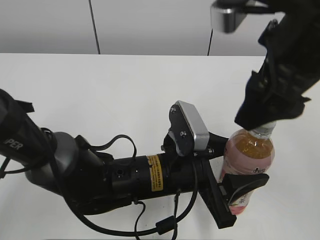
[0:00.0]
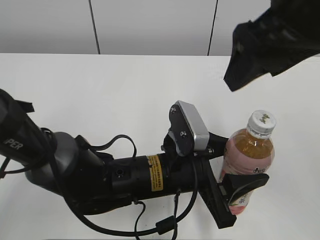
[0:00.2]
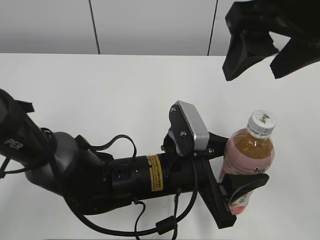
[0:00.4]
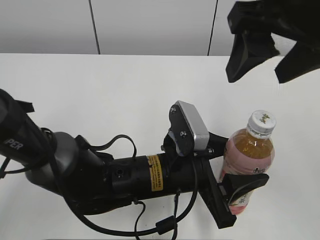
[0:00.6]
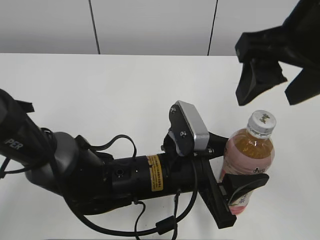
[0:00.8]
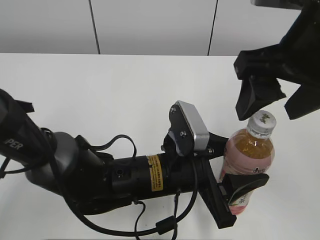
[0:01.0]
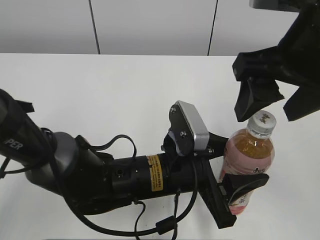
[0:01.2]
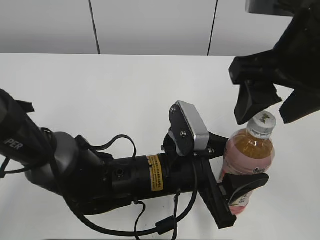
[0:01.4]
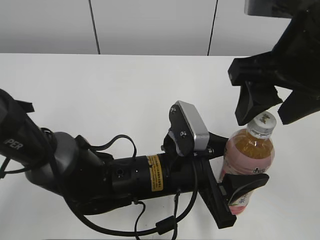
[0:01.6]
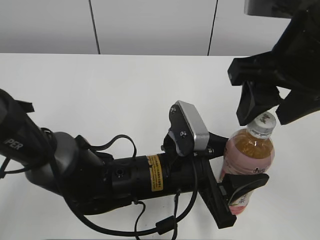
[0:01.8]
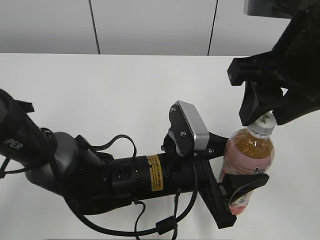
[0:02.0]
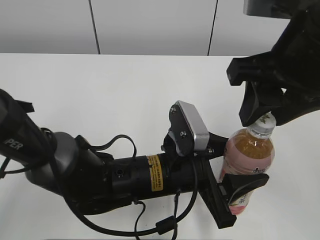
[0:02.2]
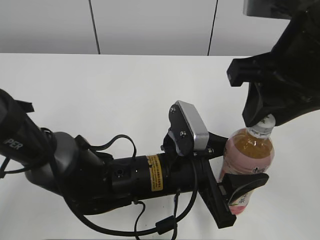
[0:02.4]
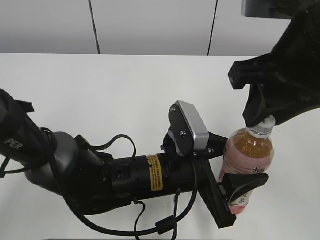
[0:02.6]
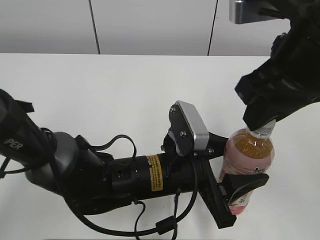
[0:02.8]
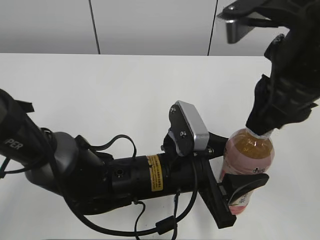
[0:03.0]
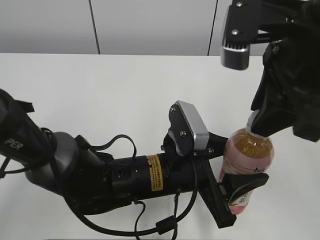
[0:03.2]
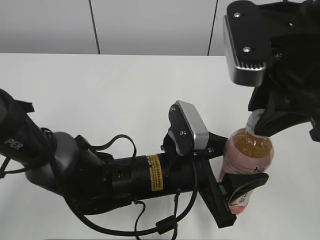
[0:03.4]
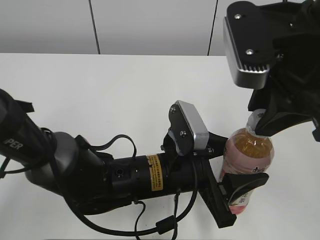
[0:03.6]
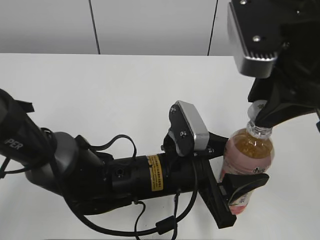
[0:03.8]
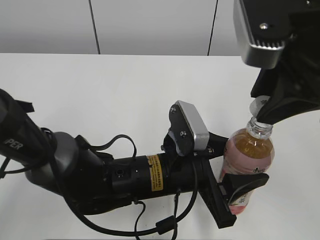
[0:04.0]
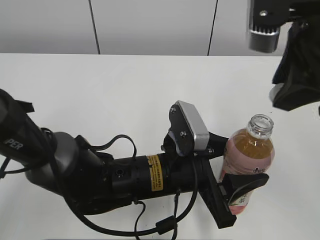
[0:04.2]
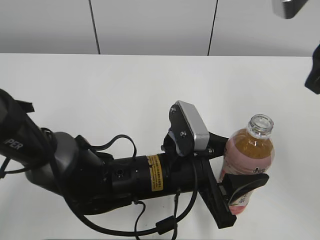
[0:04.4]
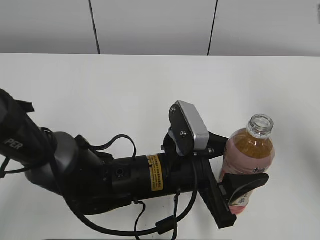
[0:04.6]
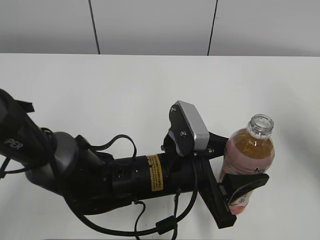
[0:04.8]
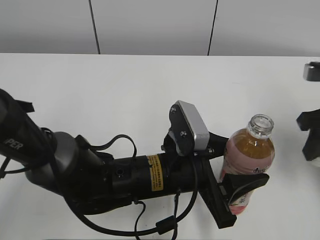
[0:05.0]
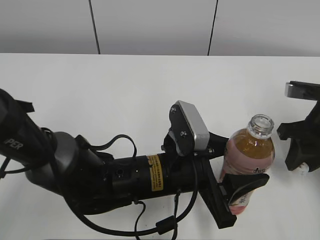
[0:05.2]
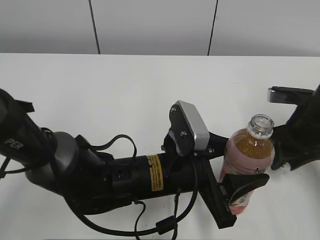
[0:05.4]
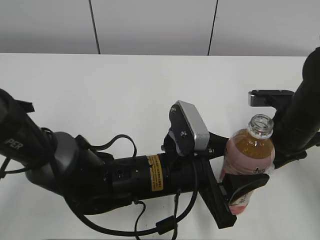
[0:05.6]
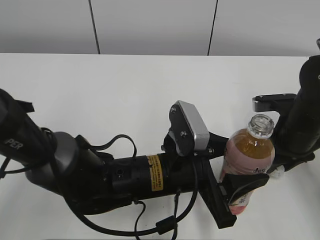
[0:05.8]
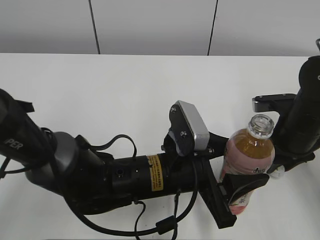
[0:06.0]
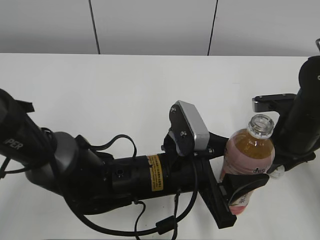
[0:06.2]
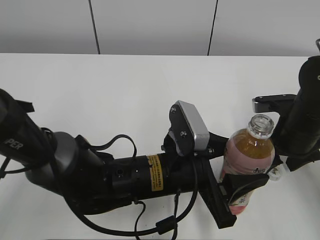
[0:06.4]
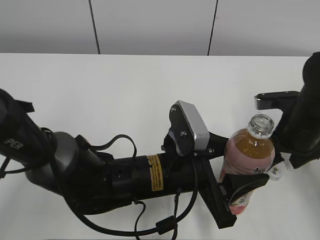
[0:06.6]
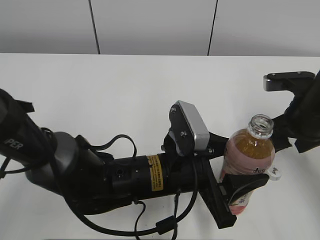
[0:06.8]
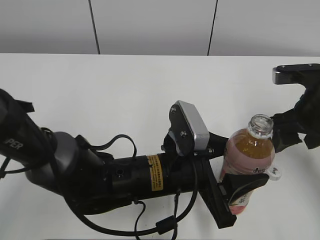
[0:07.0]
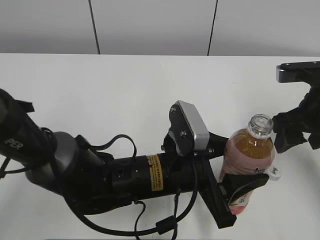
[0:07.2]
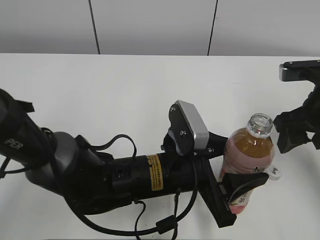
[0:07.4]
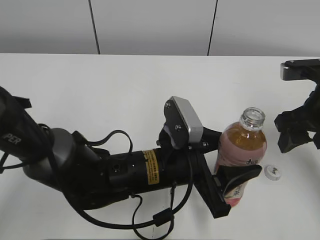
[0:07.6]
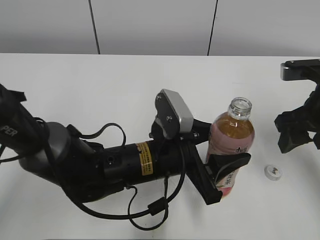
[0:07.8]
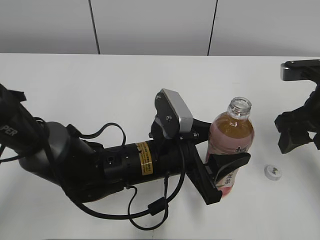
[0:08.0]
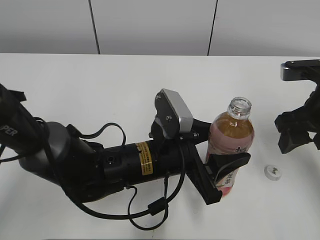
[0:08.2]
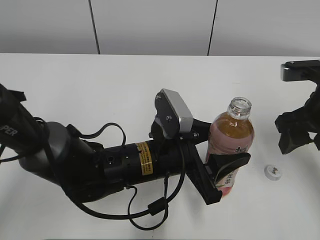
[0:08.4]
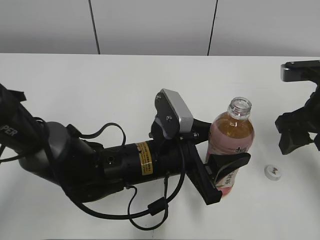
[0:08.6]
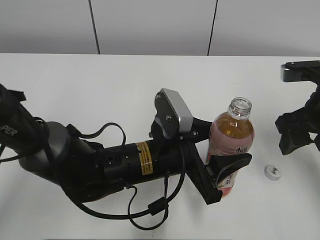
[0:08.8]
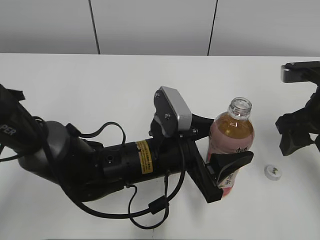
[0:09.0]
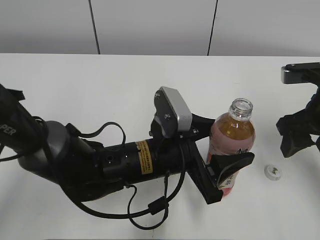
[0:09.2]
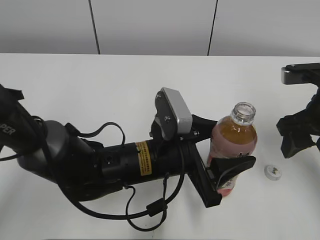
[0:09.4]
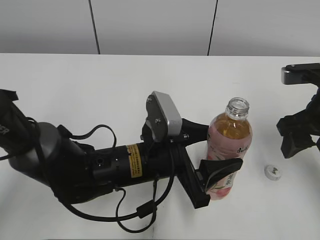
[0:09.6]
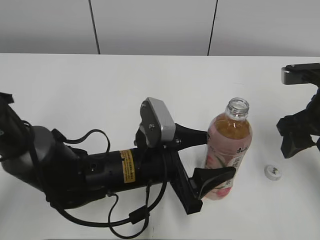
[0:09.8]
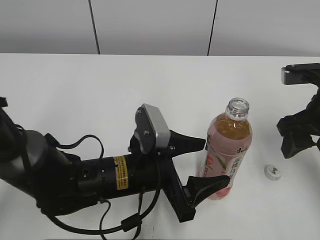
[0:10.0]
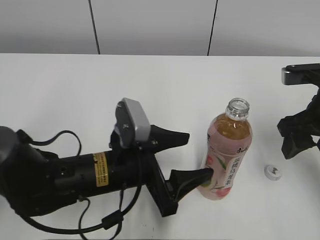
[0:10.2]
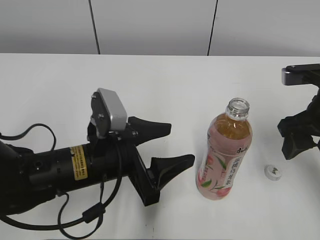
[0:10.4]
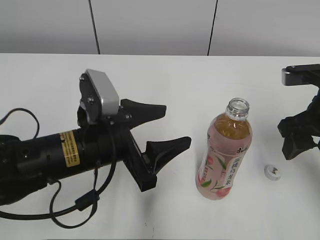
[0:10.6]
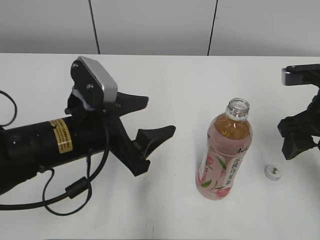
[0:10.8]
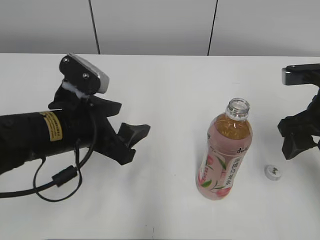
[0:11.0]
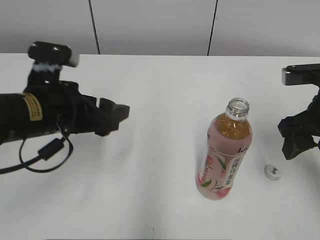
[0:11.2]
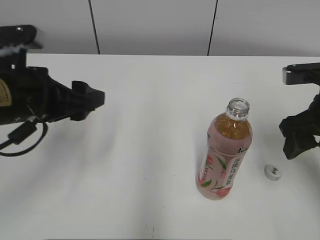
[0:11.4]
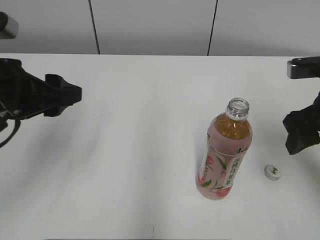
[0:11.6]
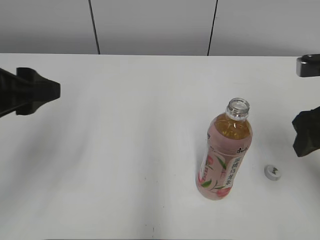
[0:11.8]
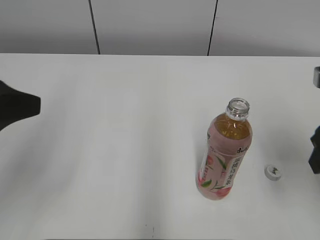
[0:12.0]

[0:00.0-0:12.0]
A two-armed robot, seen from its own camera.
Step, 0:03.8 to 0:06.2: Place the bottle cap on the right.
Step, 0:06.4 to 0:09.6: Place the Peach Oolong Tea with the left hand.
0:01.6 to 0:03.0: The right gripper closes its fingers.
0:03.0 to 0:04.4: The right gripper shifts by about 5 cm.
0:04.4 to 0:06.0: The right gripper shifts roughly 20 cm downward.
0:06.0 to 0:07.6: The right gripper shifts roughly 10 cm upward, and opens up.
0:07.6 to 0:09.0: The grippers stay close to where they were, moving slightly.
0:09.0 to 0:10.4: The left gripper travels to the left by some 10 cm.
0:10.4 to 0:12.0: The left gripper goes roughly 20 cm upward and to the left, while the right gripper shifts by roughly 5 cm.

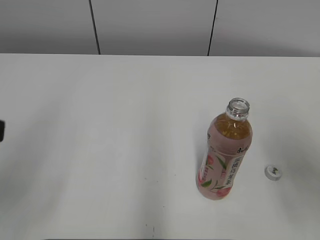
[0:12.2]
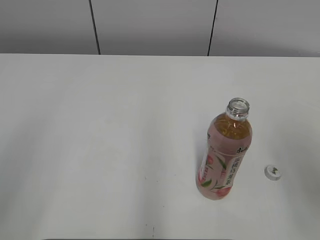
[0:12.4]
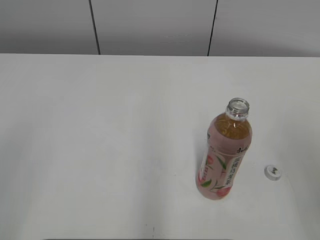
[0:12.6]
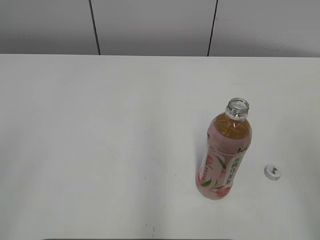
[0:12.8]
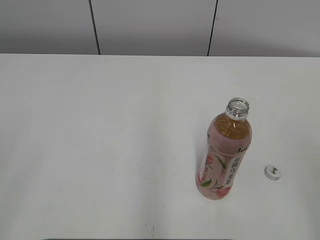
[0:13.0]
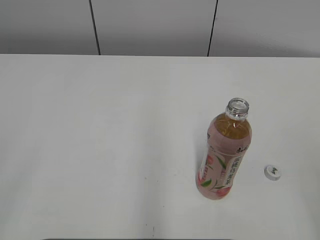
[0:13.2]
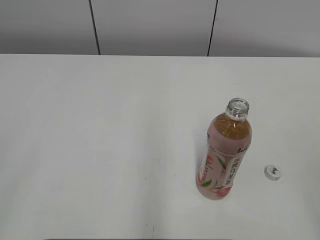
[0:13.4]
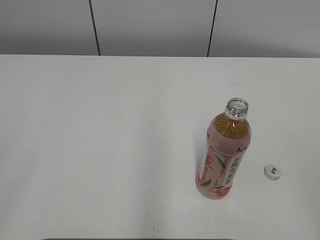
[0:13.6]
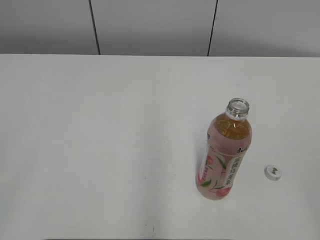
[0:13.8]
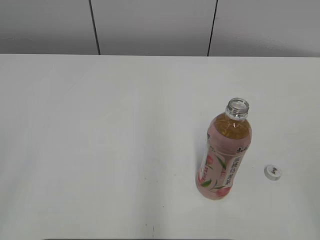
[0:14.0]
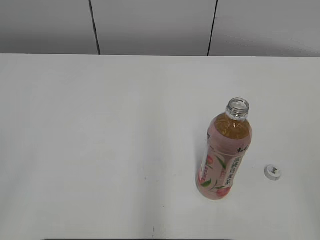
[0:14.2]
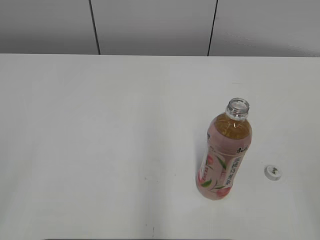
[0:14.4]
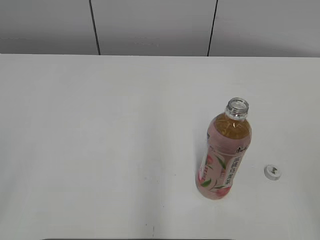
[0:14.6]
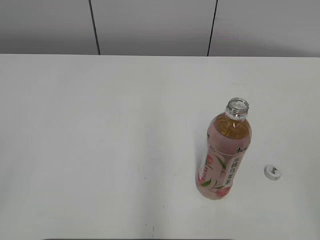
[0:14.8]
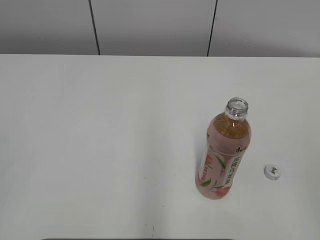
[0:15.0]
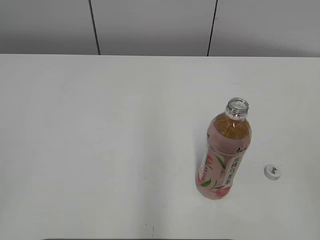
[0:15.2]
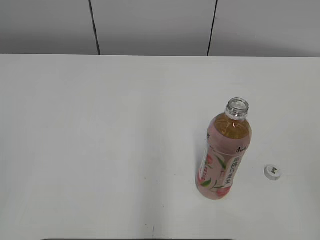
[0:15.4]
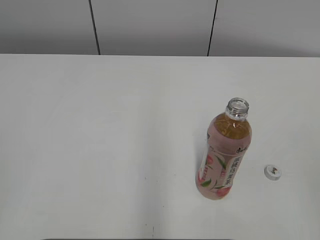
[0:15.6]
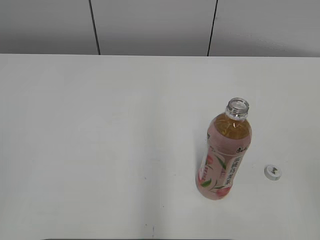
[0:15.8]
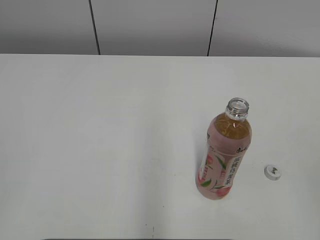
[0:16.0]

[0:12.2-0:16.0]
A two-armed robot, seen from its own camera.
0:12.2 to 0:13.4: The left gripper moves backward and to the left, about 15 cm, while the right gripper moves backward, roughly 20 cm.

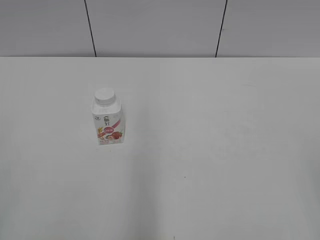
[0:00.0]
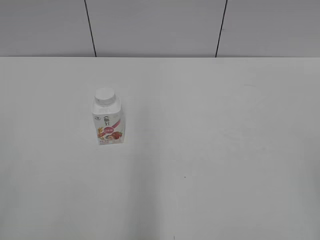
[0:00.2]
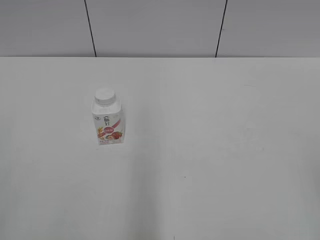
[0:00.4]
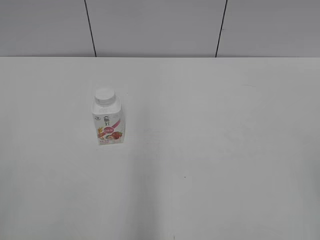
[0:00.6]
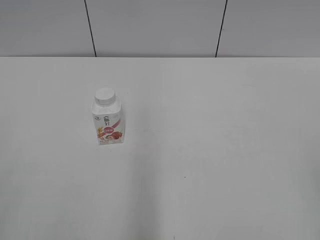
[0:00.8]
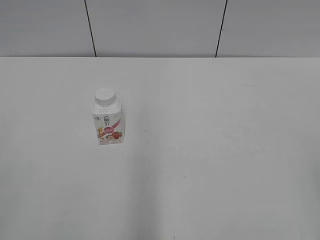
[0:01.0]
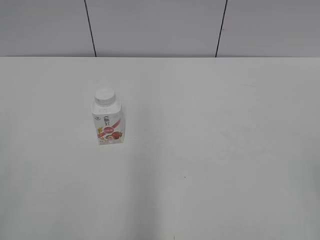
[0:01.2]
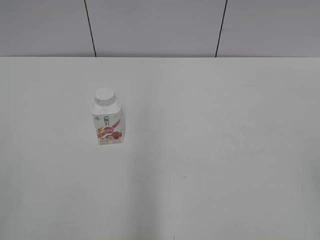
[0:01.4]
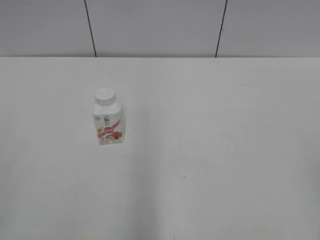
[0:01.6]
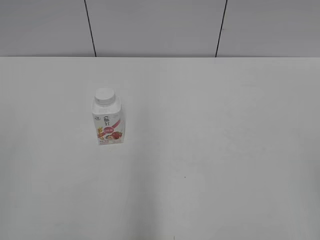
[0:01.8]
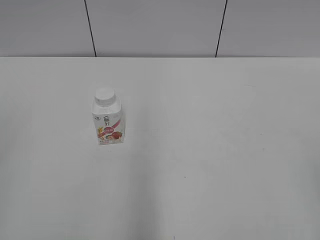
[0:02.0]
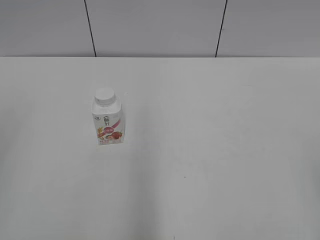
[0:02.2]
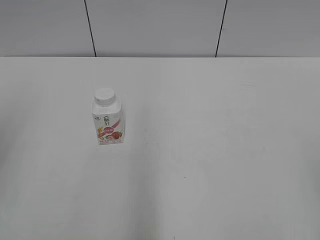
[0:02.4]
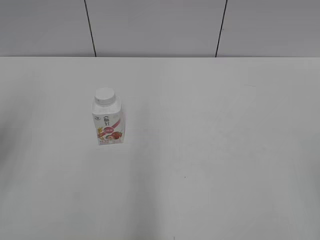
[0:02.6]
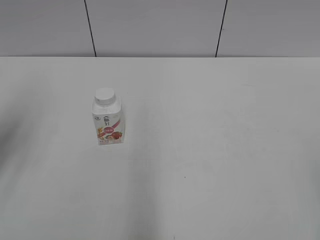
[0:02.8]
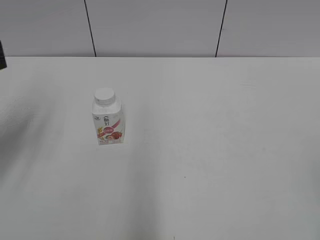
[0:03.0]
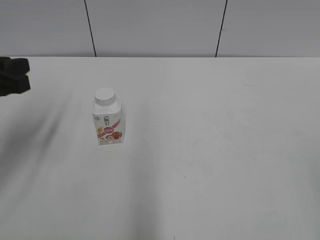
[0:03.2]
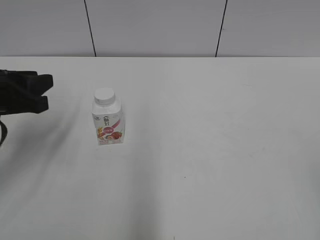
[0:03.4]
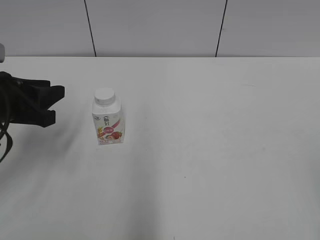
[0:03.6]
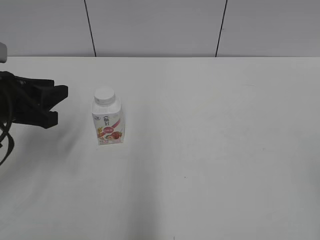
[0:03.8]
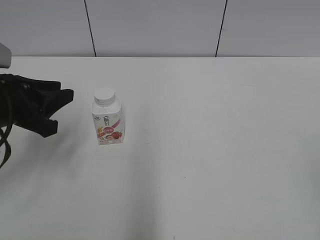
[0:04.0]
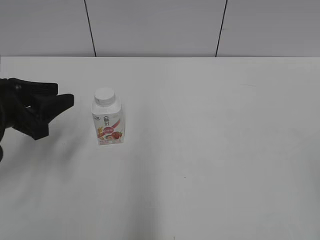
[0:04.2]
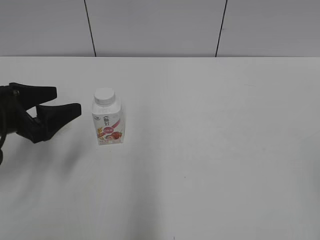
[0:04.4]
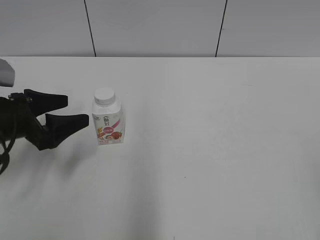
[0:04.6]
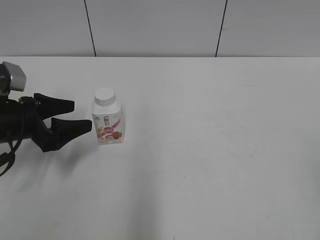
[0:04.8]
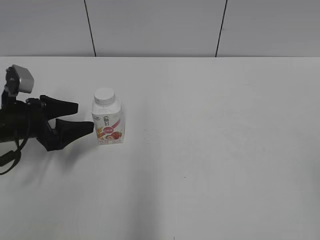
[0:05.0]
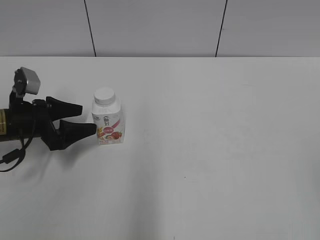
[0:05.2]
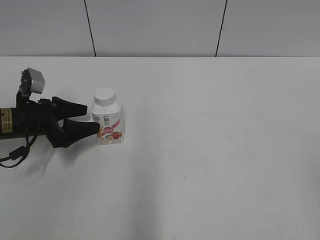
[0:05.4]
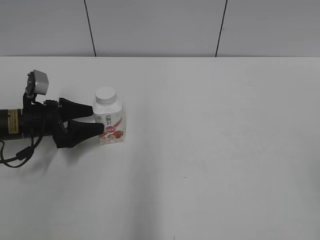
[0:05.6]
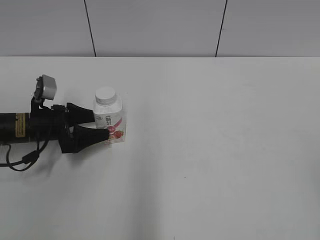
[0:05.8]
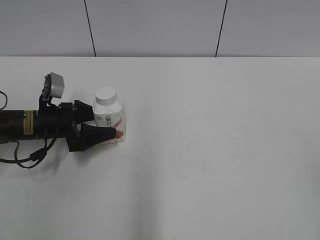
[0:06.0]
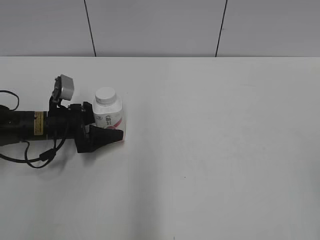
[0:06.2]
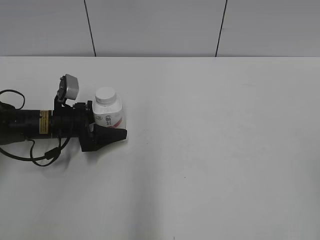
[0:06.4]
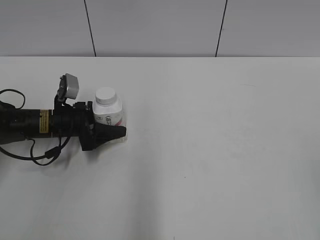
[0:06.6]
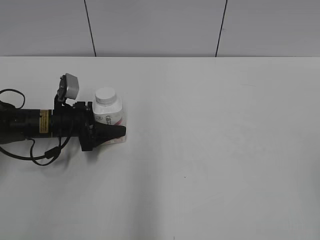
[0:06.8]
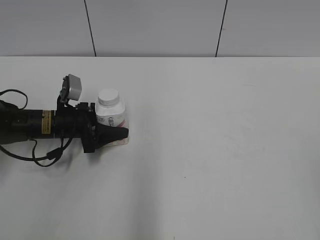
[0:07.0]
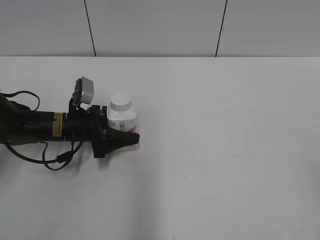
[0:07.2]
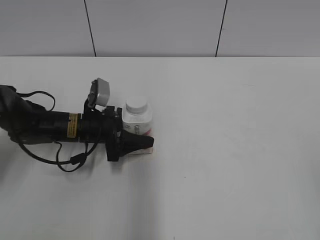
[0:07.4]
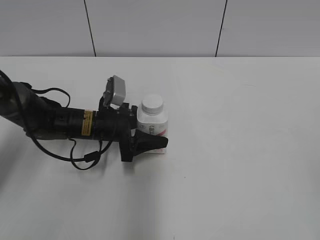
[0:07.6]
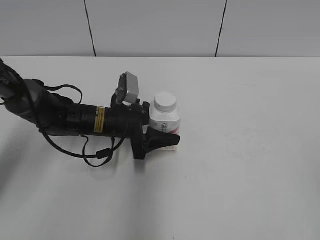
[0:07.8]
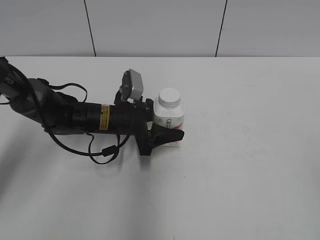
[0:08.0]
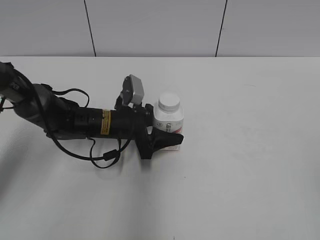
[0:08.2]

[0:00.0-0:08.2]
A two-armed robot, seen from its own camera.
Step, 0:00.0 to 0:06.6: Grab the Yili Changqing with the left hand.
0:01.6 to 0:03.2: The left gripper heads forward, covering roughly 25 cm.
0:03.2 to 0:05.0: The left gripper moves downward and forward, some 15 cm, and opens its fingers.
0:05.0 to 0:06.6: The left gripper heads forward and downward, covering some 10 cm.
0:06.6 to 0:08.2: The left gripper travels to the right by about 10 cm.
